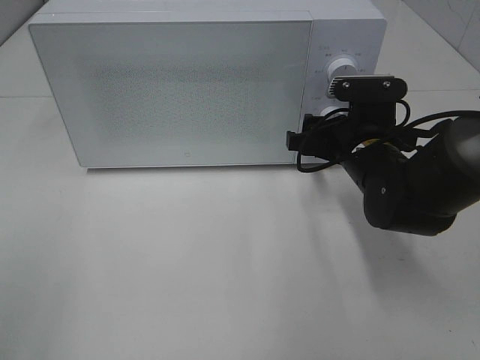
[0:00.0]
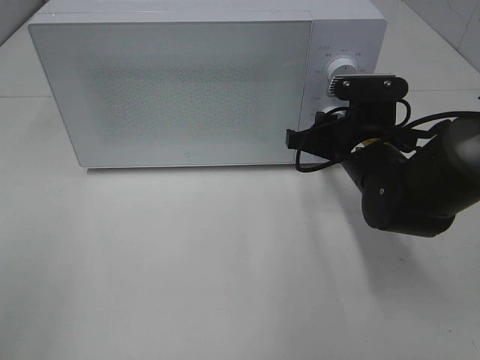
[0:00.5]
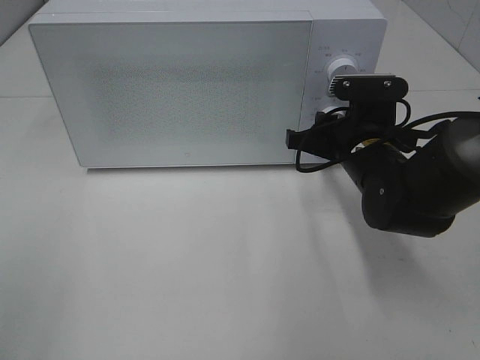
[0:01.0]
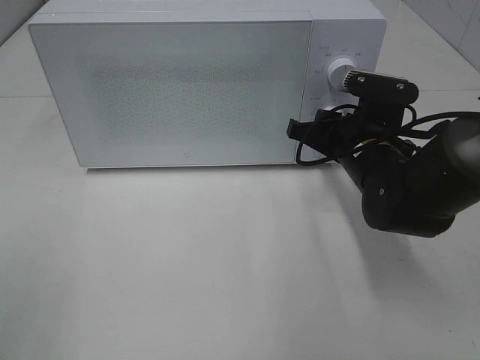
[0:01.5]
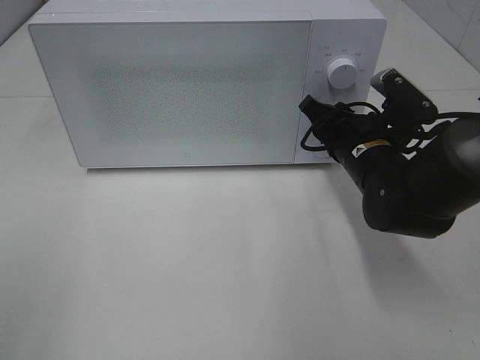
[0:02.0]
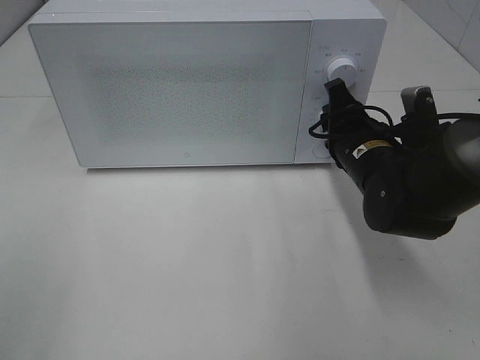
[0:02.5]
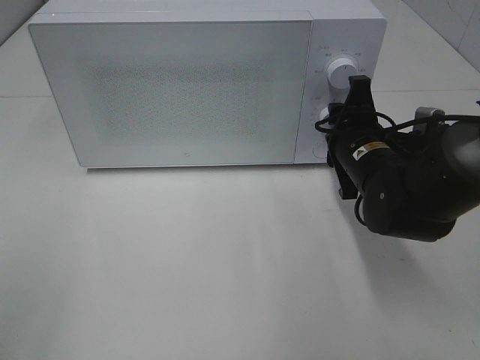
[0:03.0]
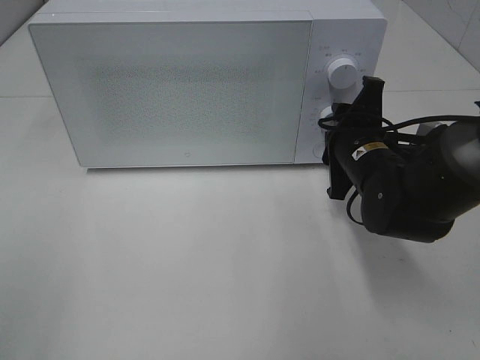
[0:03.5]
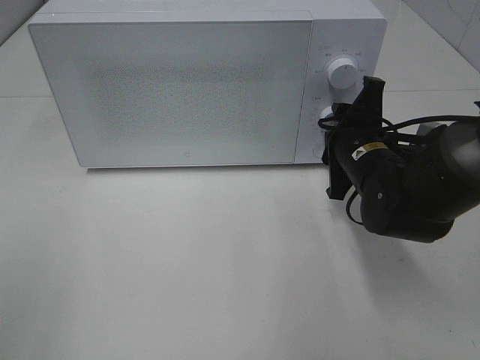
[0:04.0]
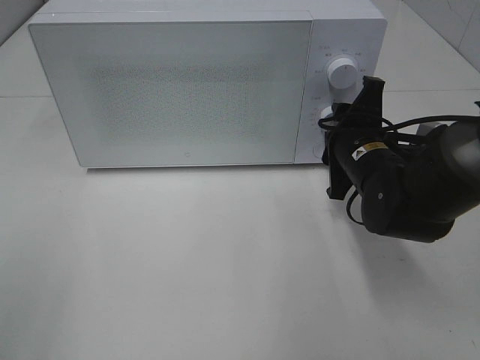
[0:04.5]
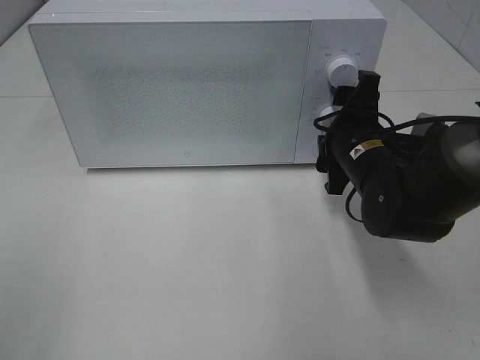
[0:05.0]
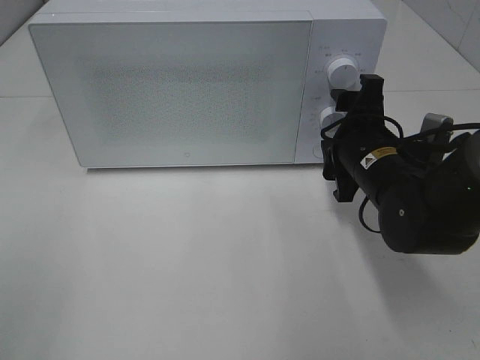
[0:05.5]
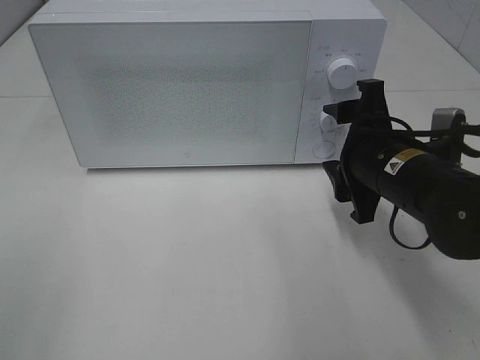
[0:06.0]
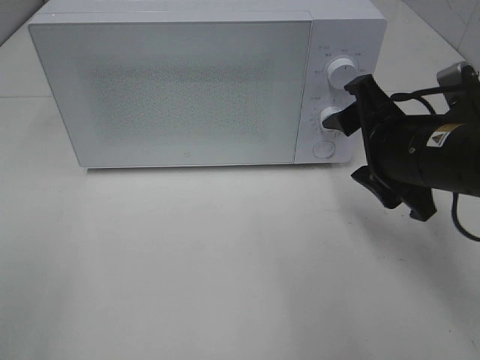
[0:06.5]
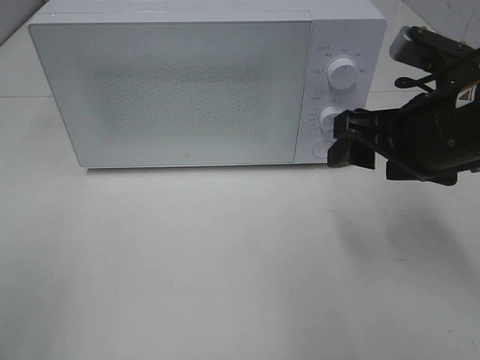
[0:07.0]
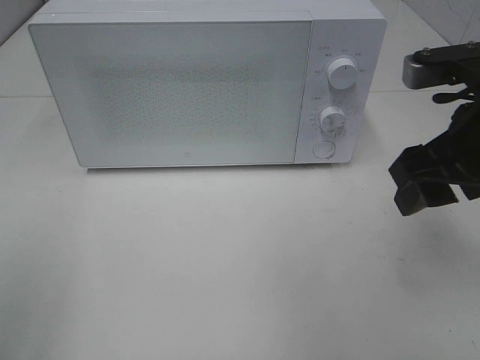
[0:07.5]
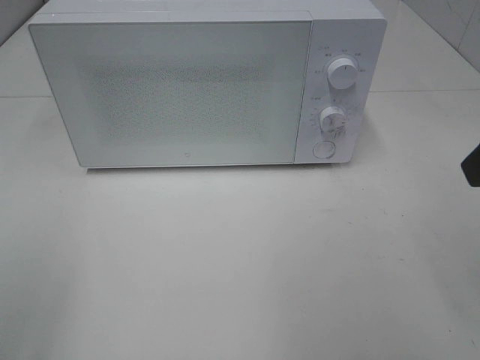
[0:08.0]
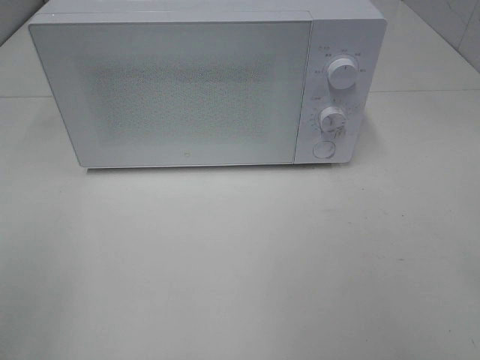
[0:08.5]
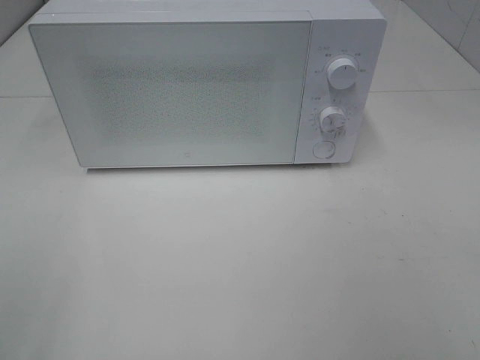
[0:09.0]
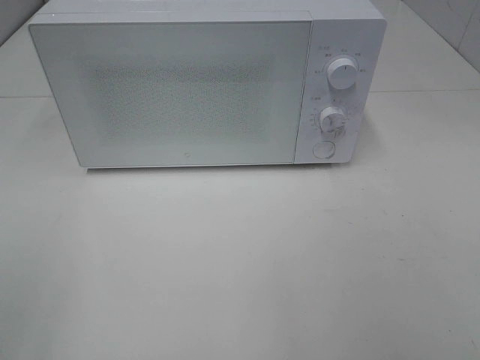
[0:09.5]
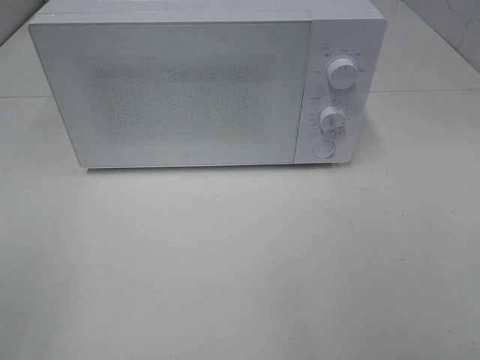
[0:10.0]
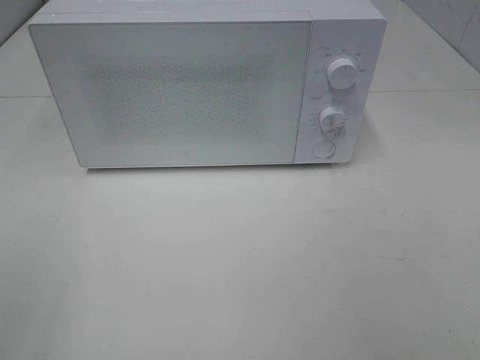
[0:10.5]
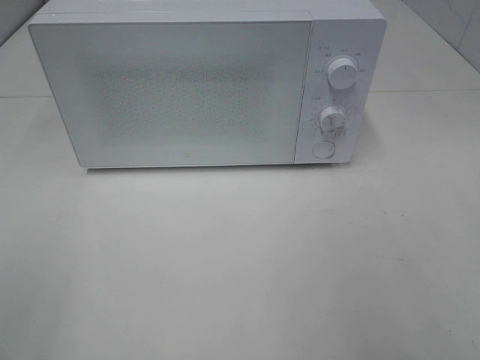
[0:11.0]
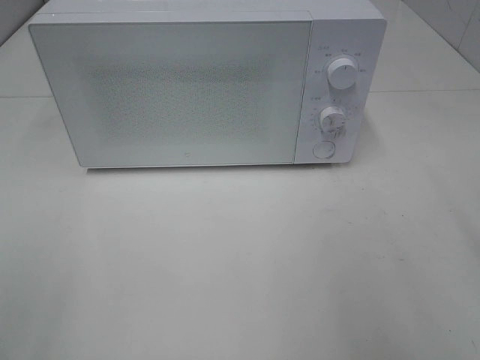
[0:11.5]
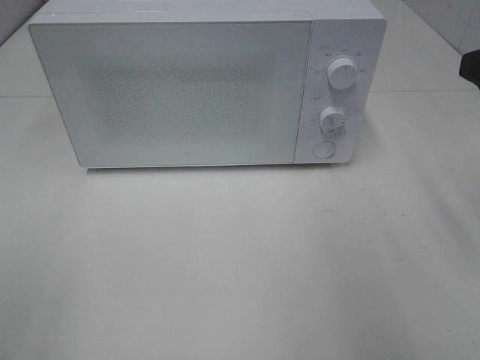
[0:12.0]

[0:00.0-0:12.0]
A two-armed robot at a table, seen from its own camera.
Task of the whole recording: Heat Sandwich.
Step, 0:00.0 to 0:05.5: Right hand: twist timer button.
0:00.0 to 0:02.0: The right gripper closes.
0:04.0 to 0:06.0: The right gripper shifts some 5 cm backward, and opens its fingers.
0:06.0 to 0:08.0: The right gripper shifts roughly 20 cm upward, backward and to the right.

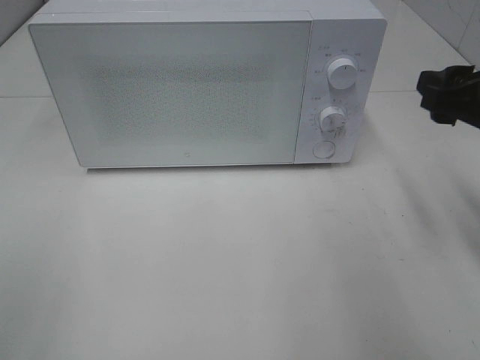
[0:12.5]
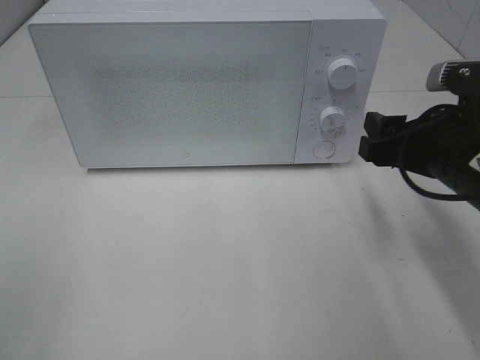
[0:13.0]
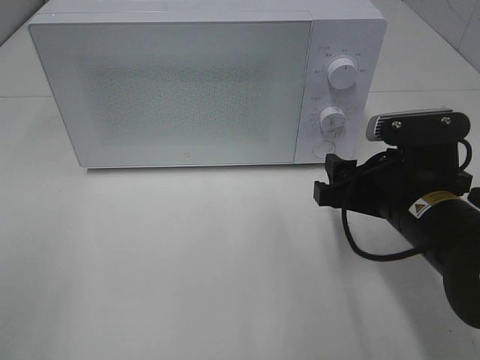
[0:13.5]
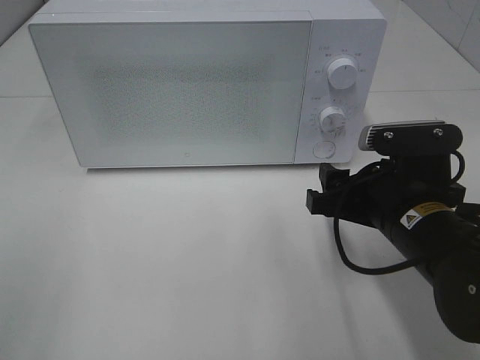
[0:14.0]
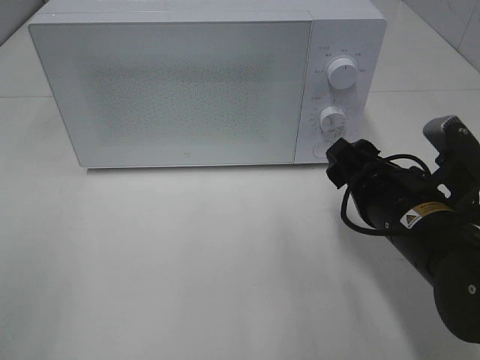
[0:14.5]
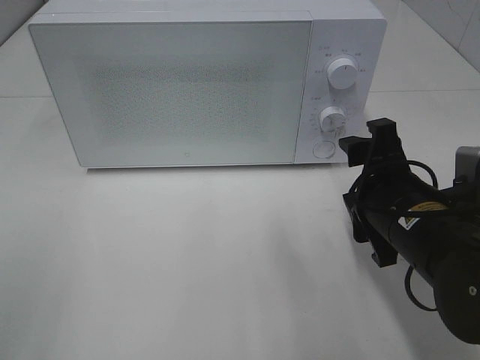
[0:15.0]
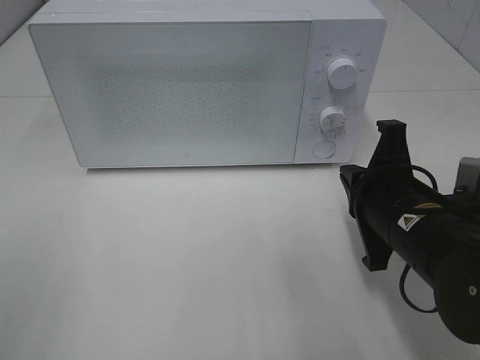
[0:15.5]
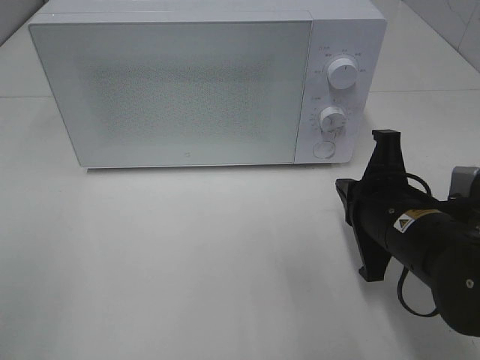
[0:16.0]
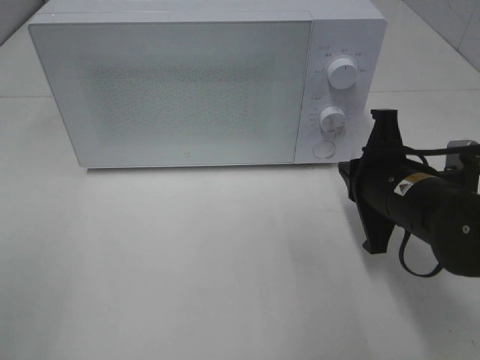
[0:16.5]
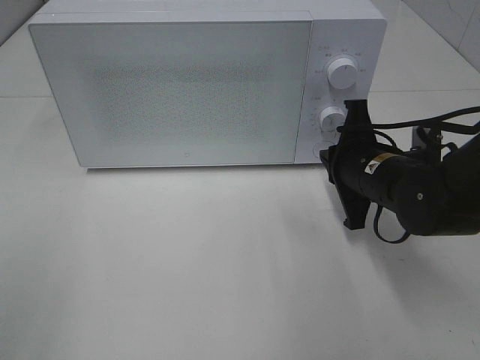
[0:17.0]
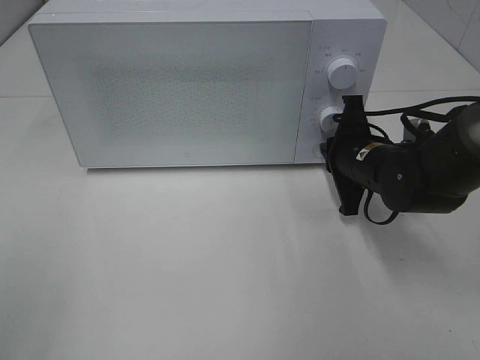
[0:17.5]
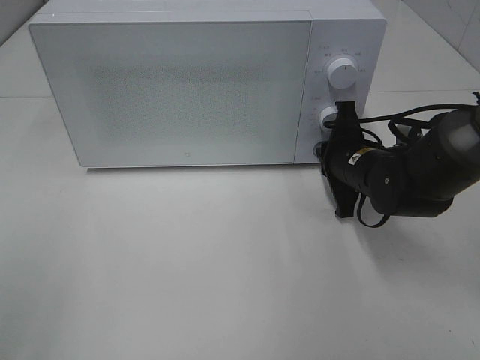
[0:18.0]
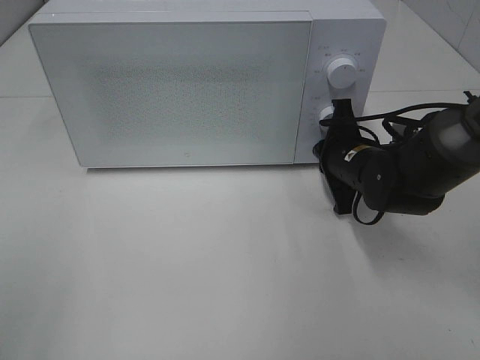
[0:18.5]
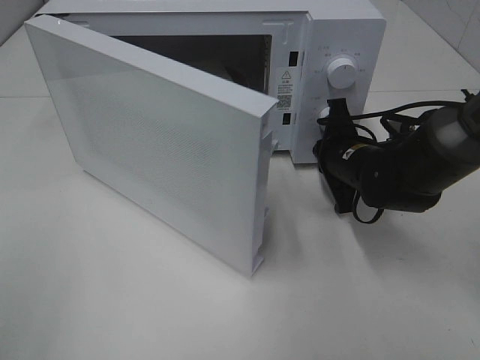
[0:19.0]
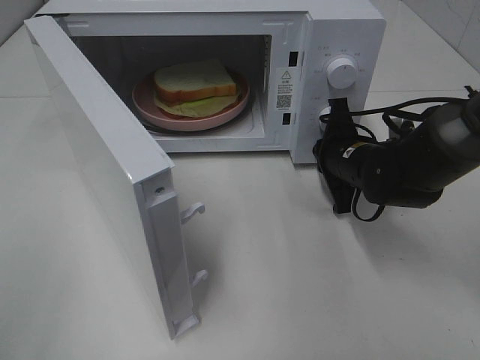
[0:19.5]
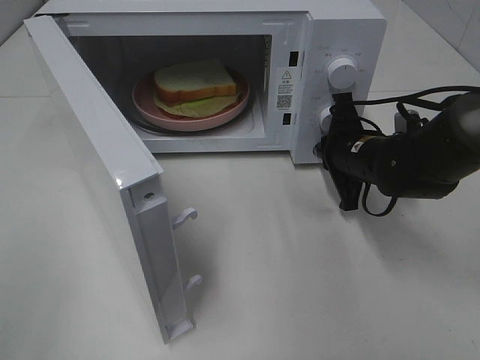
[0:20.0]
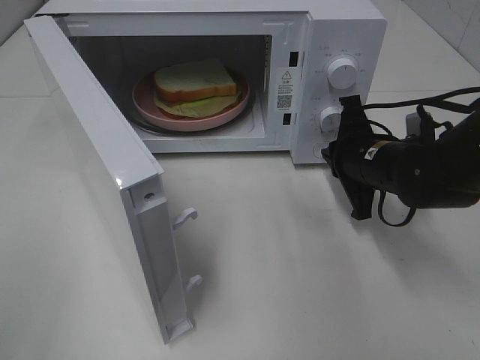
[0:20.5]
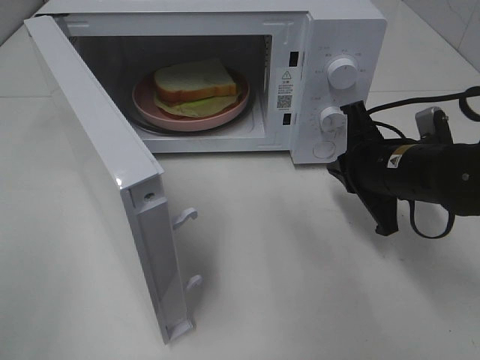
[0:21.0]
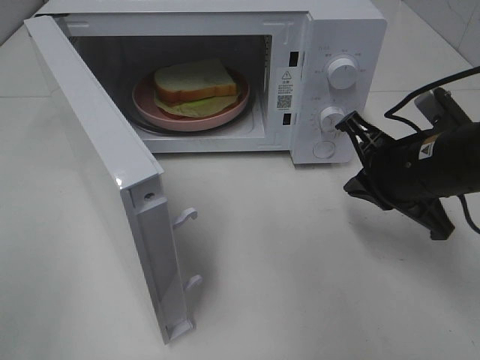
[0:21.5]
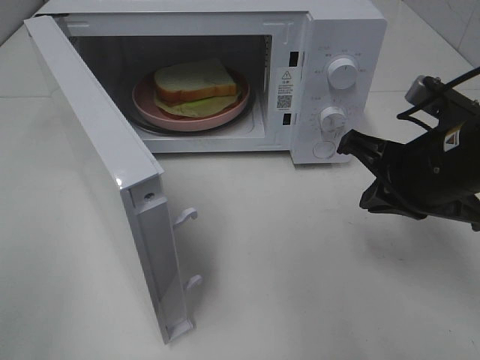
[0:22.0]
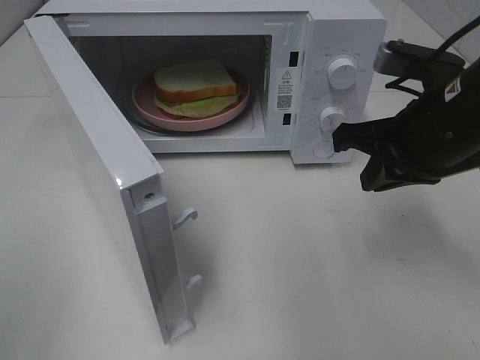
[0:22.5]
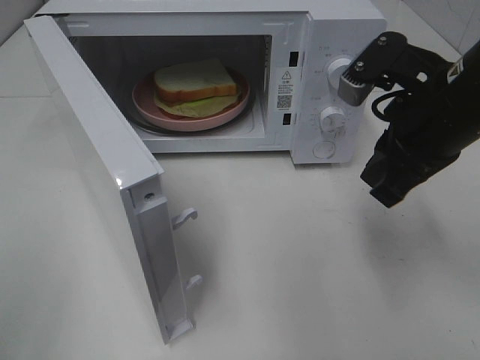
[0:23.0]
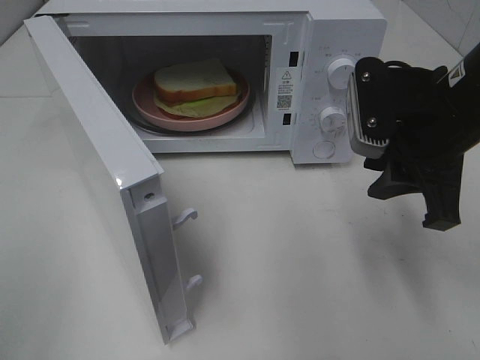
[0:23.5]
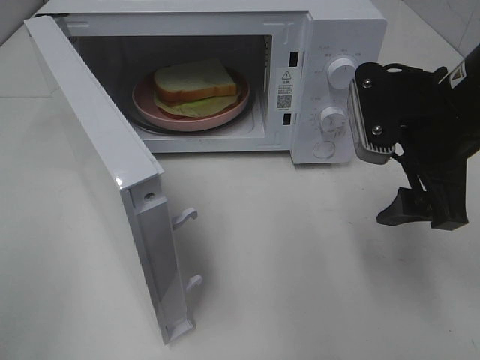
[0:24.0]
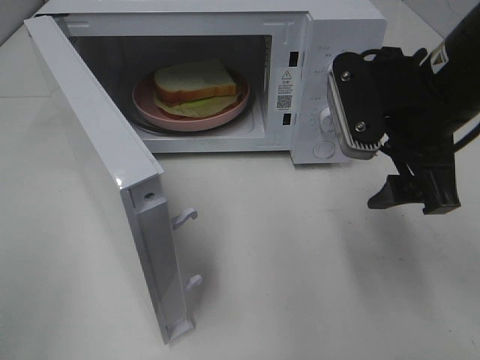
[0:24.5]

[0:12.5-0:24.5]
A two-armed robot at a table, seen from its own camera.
Task of the whole recording: Heat Sandwich.
Step, 0:12.5 to 0:20.5: Right hand: press the switch.
0:12.5 to 0:14.5: The right gripper travels to the left and downward by about 15 cm.
0:14.5 to 0:16.5: The right gripper closes its fingers.
0:16.5 to 0:18.5: The right gripper shifts some 10 cm forward.
0:20.5 to 0:22.5: The right gripper goes approximately 15 cm upward and backward.
0:22.5 to 0:24.5: The right gripper opens.

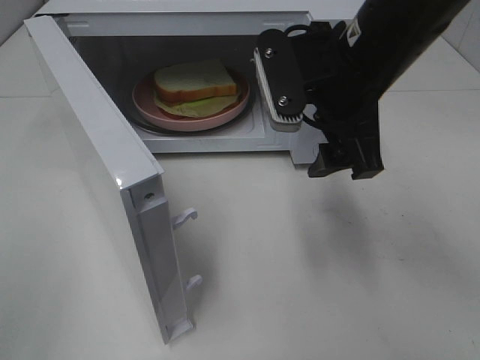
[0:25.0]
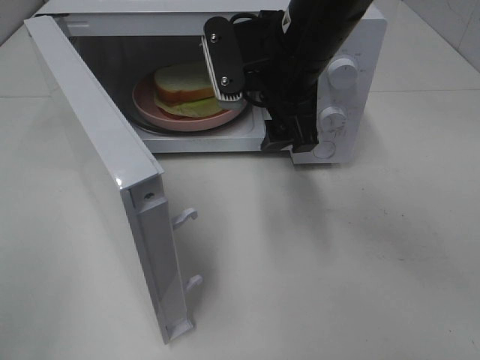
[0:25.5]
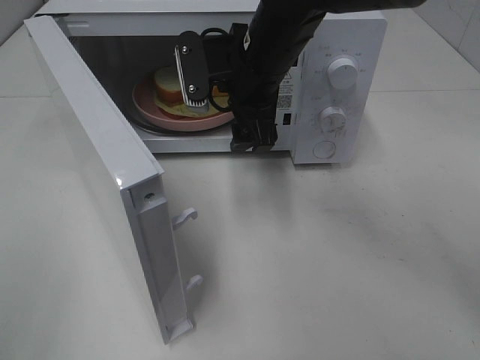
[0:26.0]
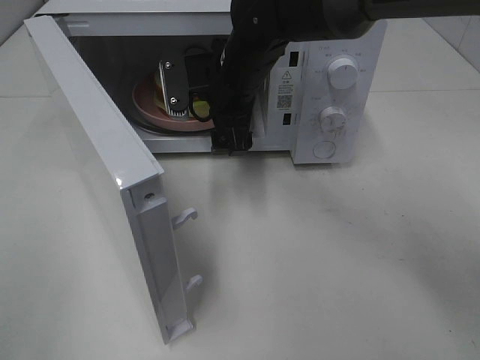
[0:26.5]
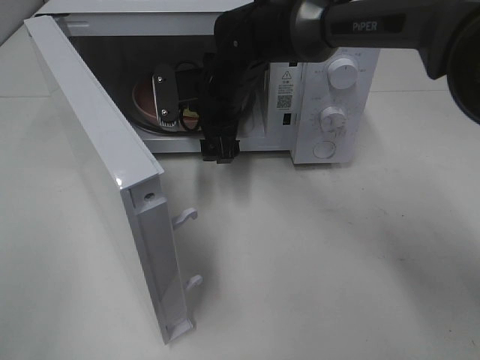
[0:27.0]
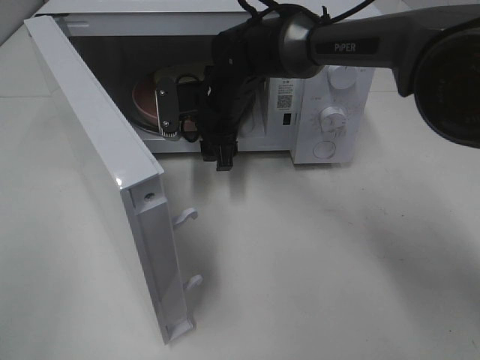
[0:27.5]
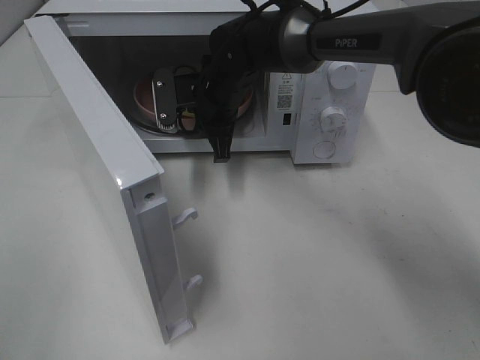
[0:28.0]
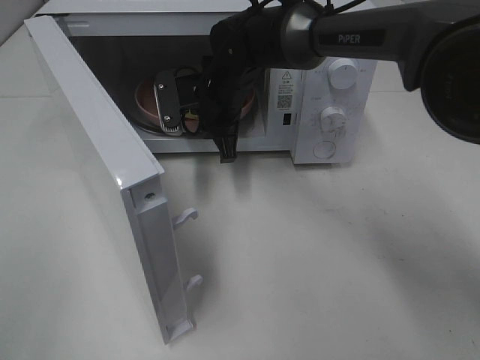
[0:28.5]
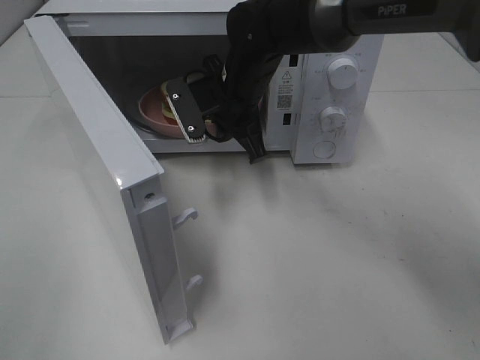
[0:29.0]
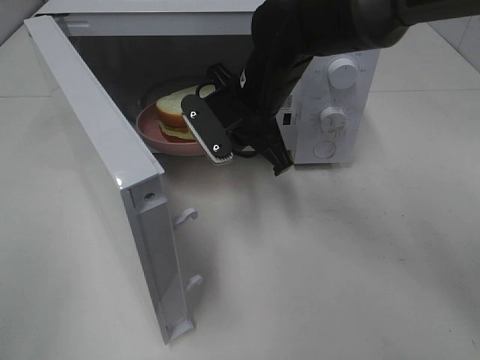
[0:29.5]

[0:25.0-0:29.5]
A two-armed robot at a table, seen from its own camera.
Task of the whole recording: Heat Sandwich.
Step, 0:25.0 to 0:28.0: Right hand: grab the plate with the sandwich.
0:25.0 to 0:27.0: The right gripper is displaced forward, to the left and downward by roughly 20 cm.
0:27.0 to 0:29.5: The right gripper moves backward, some 5 cm, and closes.
